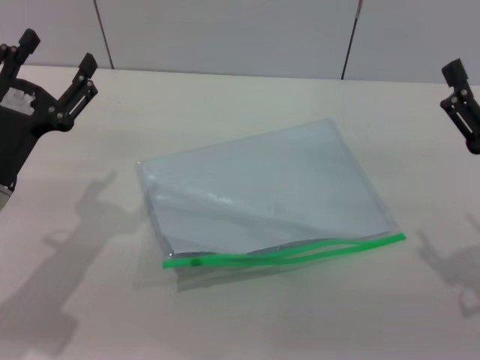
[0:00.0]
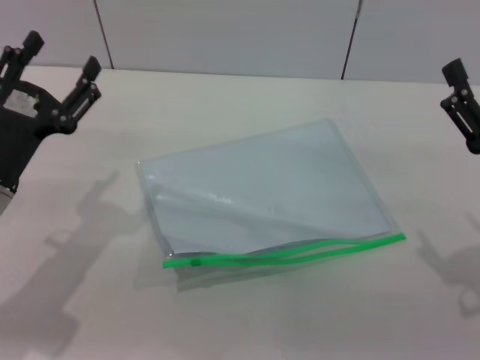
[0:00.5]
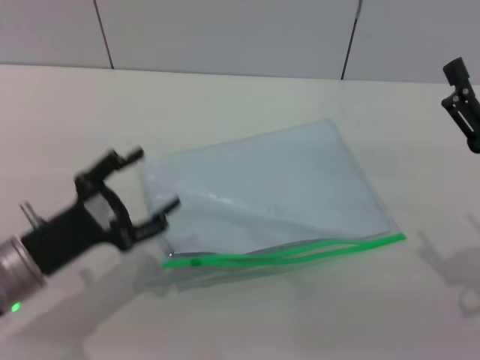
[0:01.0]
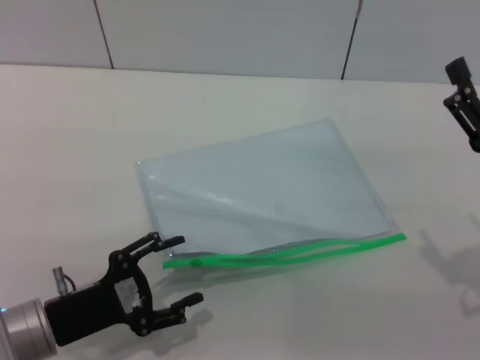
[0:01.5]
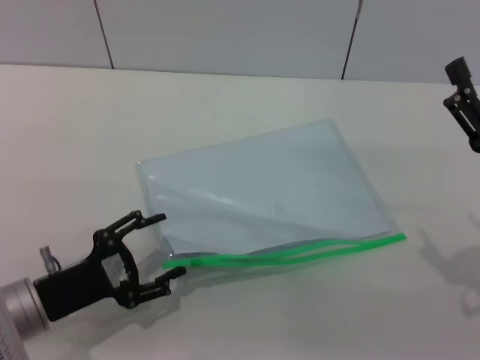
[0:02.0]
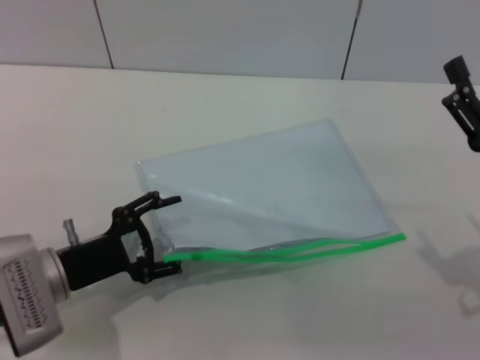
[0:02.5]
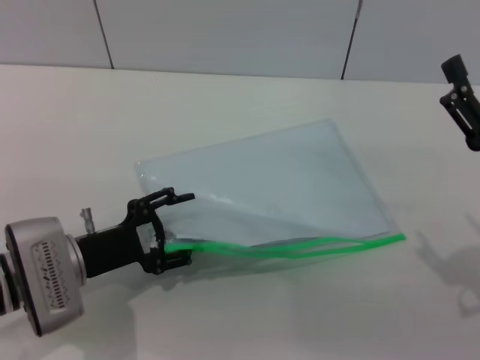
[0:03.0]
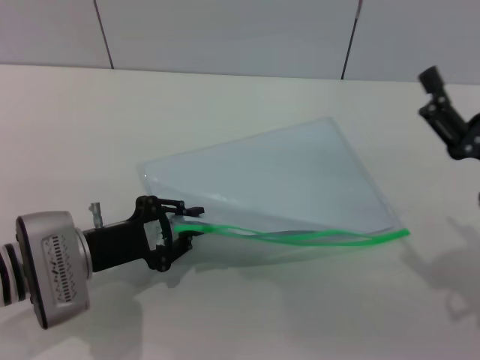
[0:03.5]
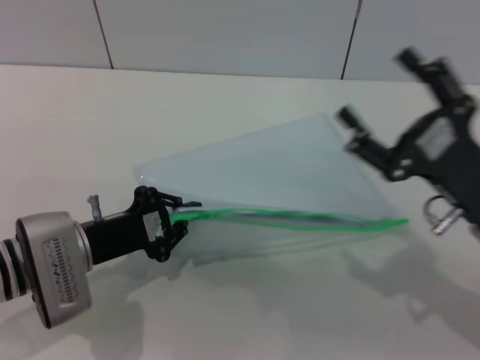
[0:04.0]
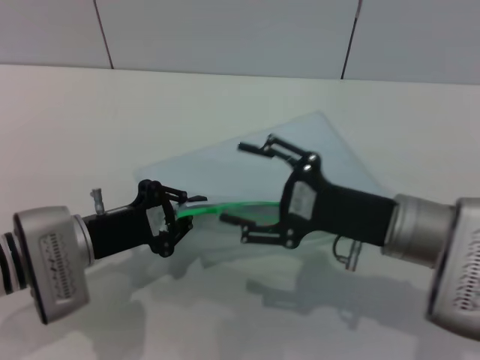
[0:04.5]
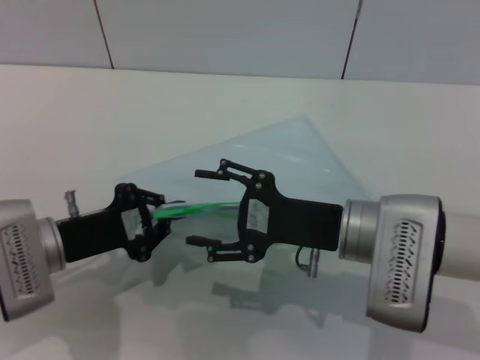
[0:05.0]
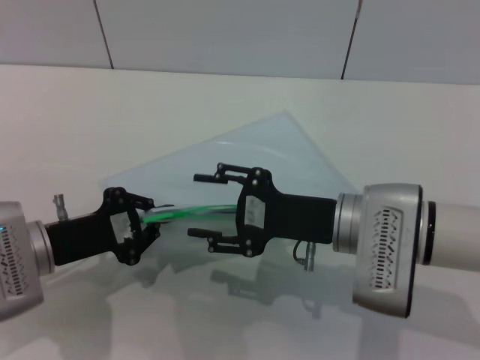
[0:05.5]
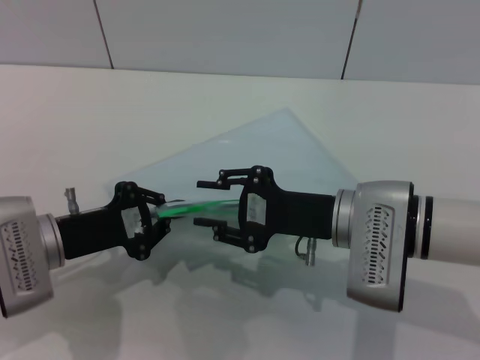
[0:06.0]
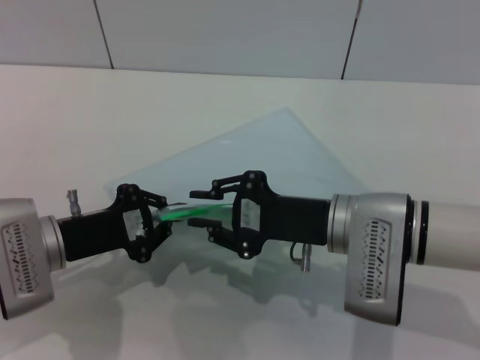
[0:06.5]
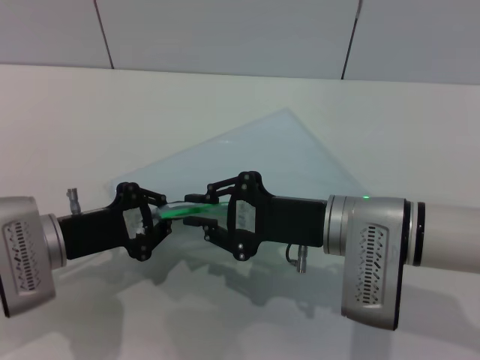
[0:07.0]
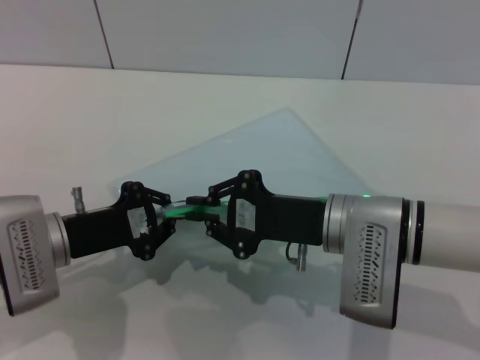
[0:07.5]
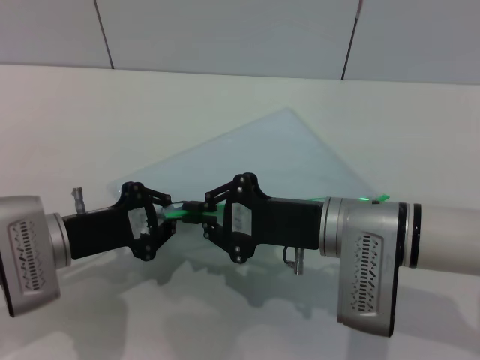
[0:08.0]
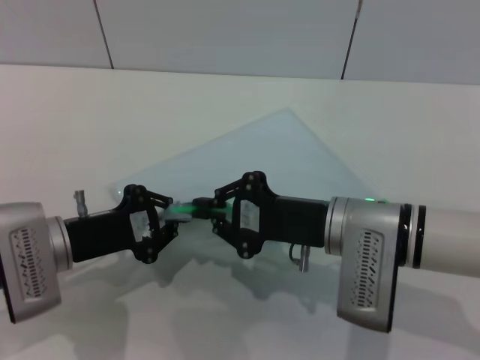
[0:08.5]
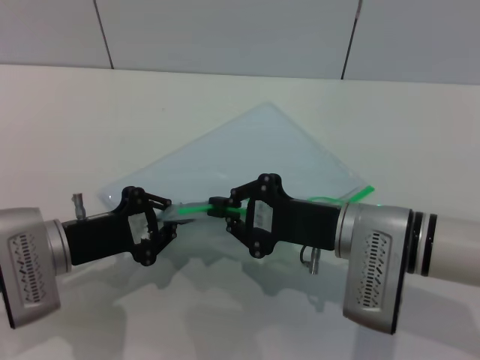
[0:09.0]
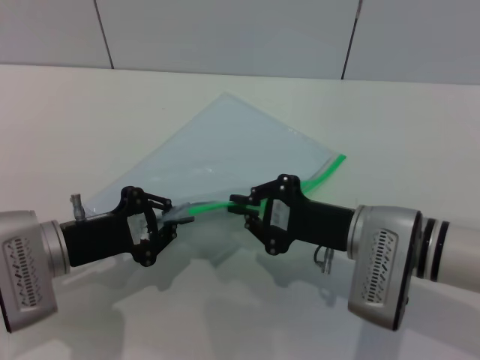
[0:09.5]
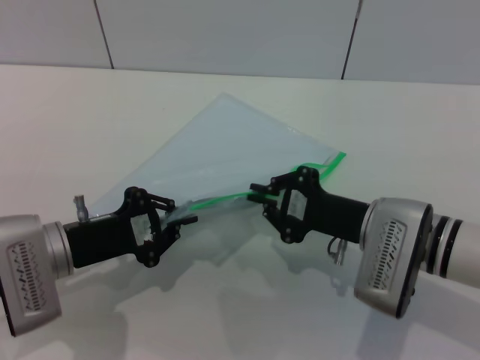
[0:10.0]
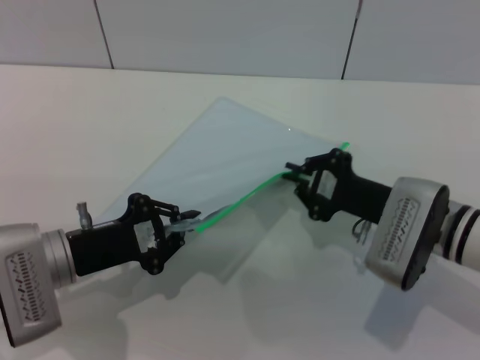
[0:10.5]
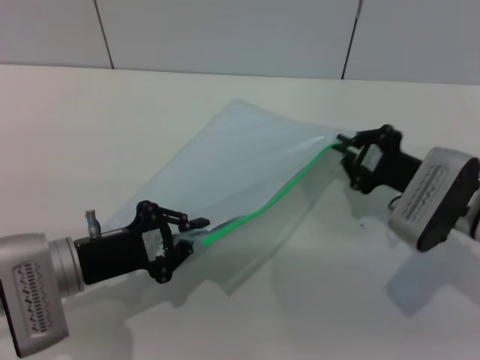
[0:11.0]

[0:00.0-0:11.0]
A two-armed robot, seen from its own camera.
Step, 0:00.0 to 0:04.0: Pick up the transparent plastic bag with the left gripper.
0:00.0 to 0:02.0: The left gripper moves downward and backward, about 10 cm.
0:02.0 to 0:03.5: The left gripper heads forward, covering roughly 5 cm, and closes its fingers.
0:03.5 to 0:05.5: The right gripper moves to the left and forward, approximately 15 cm; the left gripper closes up.
0:05.5 to 0:07.5: The right gripper closes up.
0:07.5 to 0:09.0: The grippers stay close to where they were, moving slightly.
0:09.0 to 0:11.0: The right gripper travels to the right by approximately 10 cm.

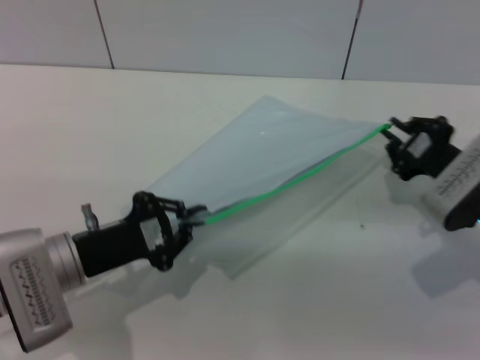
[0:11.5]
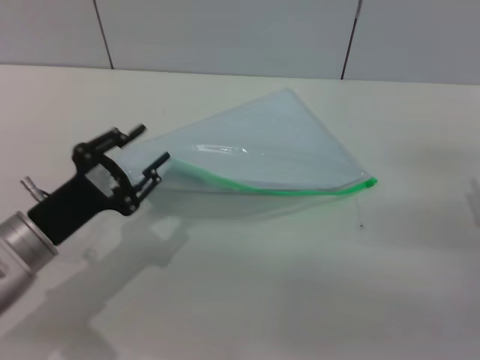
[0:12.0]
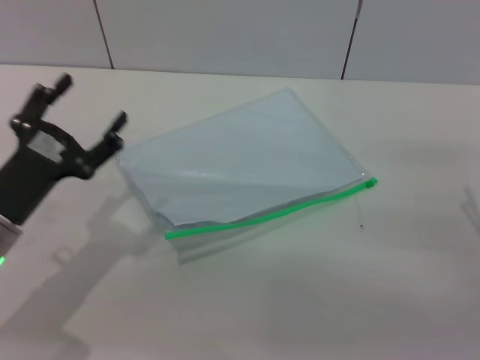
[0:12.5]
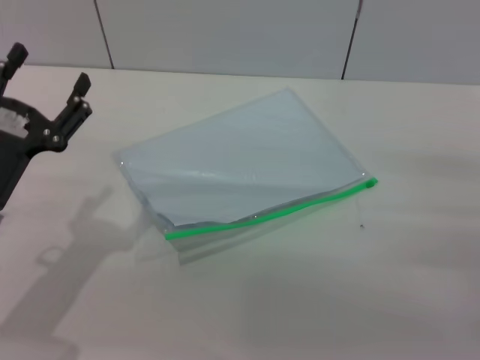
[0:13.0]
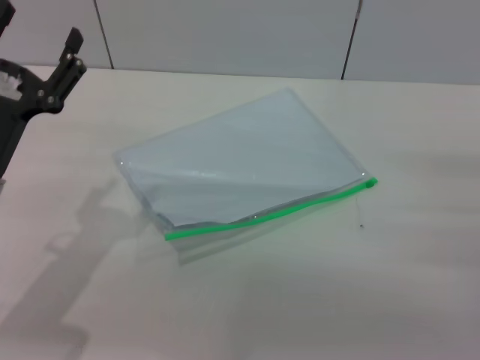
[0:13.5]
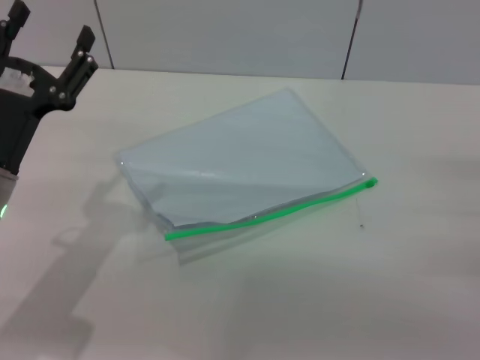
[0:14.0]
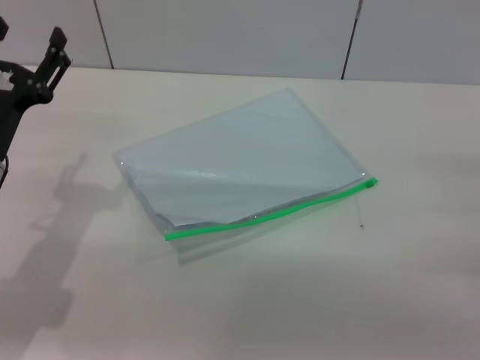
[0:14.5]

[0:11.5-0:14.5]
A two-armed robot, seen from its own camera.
0:11.5 to 0:13.0: The left gripper ends up roughly 5 cm from where it was, and opens. Meanwhile the right gripper travels backward and to the right by approximately 10 cm, and opens up.
0:13.0 to 0:14.5: The grippers move only a little.

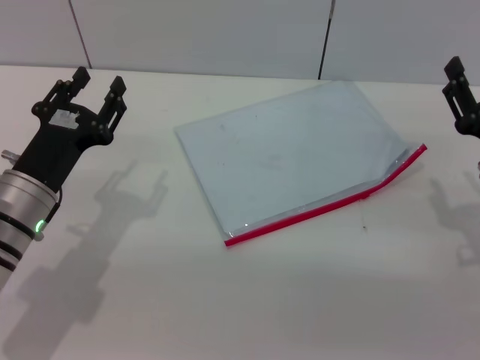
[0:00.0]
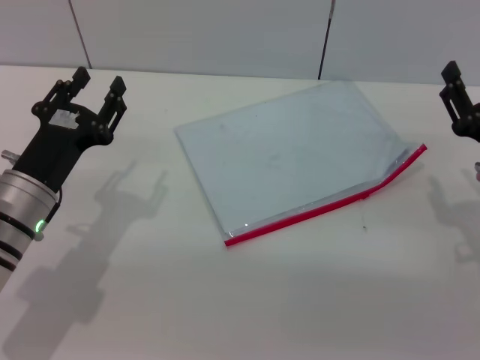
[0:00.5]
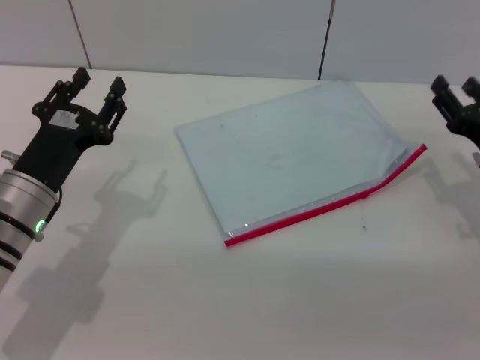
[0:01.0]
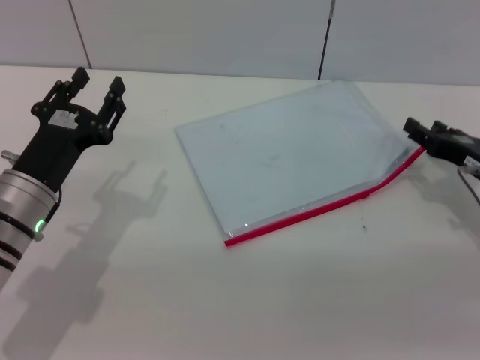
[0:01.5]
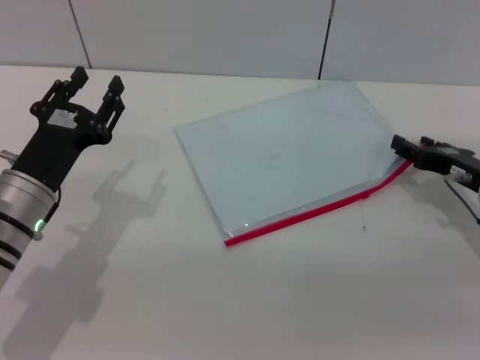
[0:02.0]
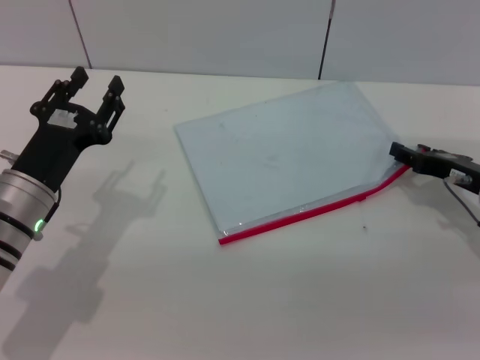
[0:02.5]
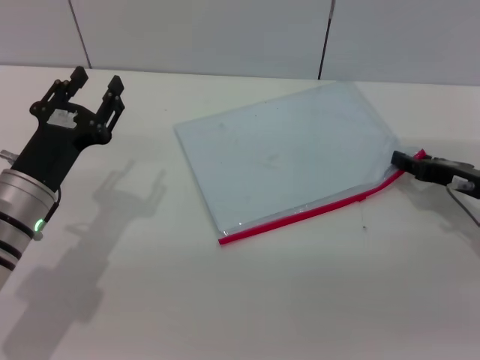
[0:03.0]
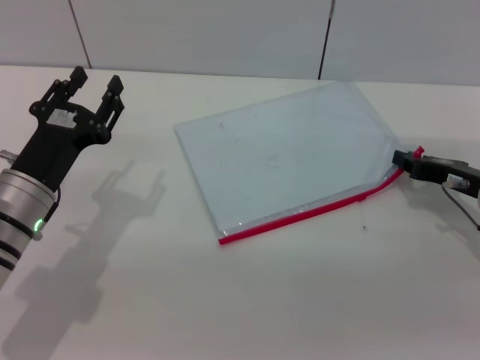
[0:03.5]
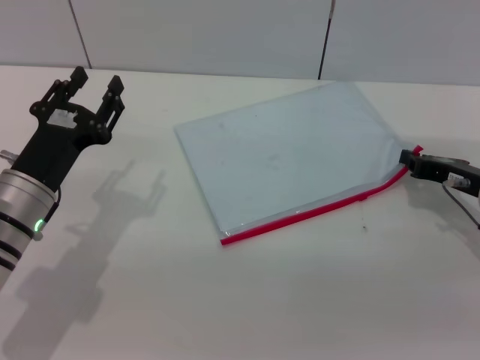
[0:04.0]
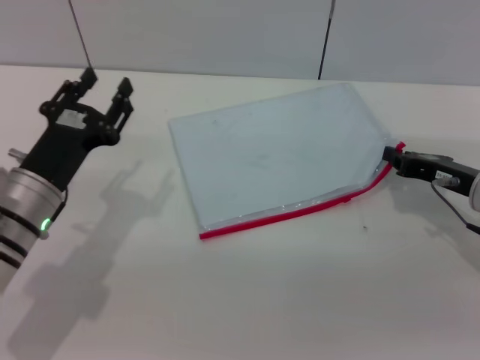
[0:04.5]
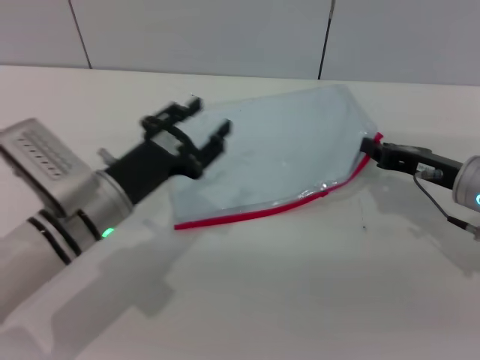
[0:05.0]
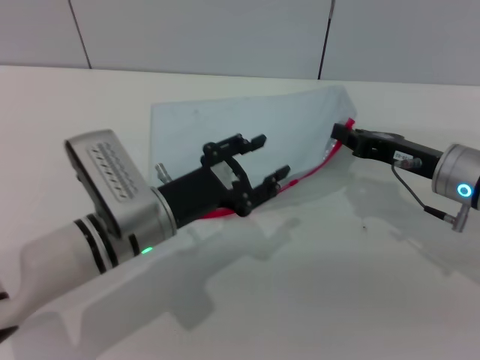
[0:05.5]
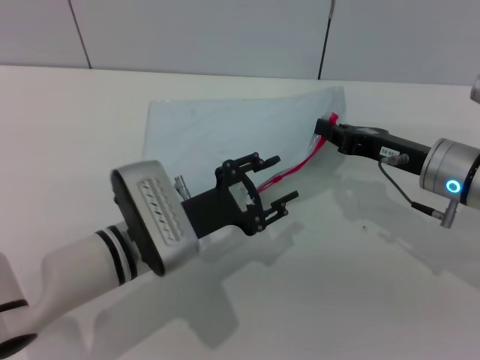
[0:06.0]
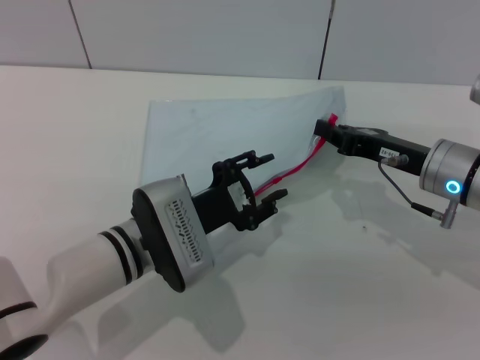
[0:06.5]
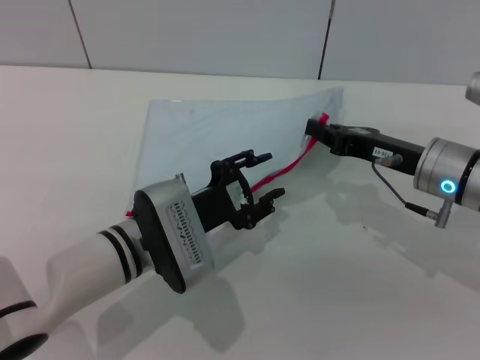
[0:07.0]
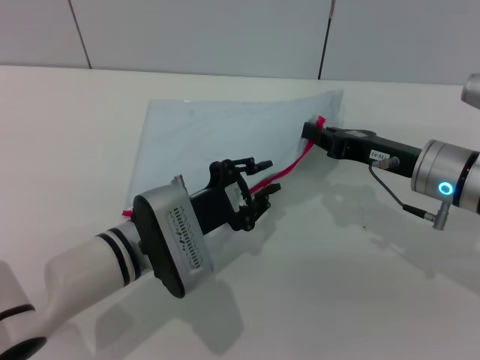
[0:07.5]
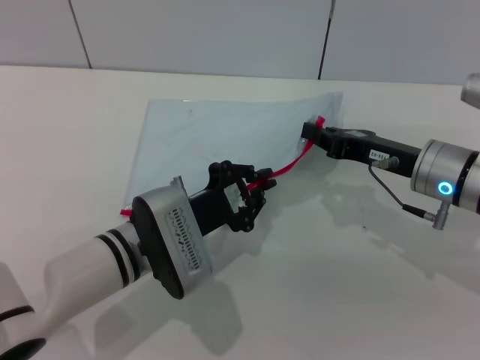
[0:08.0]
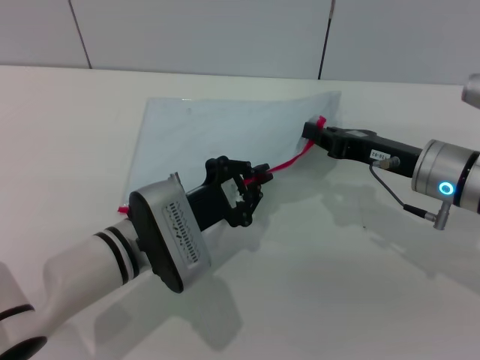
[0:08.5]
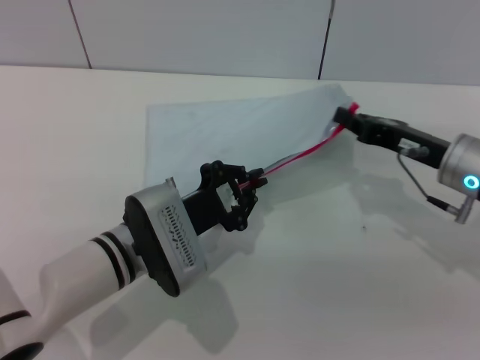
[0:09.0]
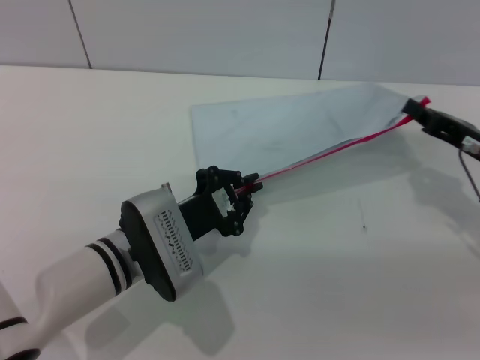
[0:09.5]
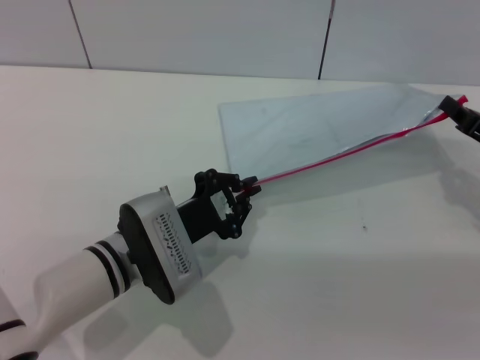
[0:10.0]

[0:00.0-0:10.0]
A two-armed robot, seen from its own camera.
Step, 0:00.0 to 0:05.5: Pick up the transparent plastic bag with the right gripper.
0:00.0 to 0:02.0: The right gripper goes approximately 5 cm forward.
0:02.0 to 0:04.0: The right gripper closes.
0:04.0 to 0:06.0: The left gripper moves to the right, approximately 10 cm. Meanwhile the right gripper goes roughly 5 cm to the left.
0:06.0 to 0:08.0: The left gripper closes its fingers.
0:08.0 to 0:10.0: The right gripper heads to the right, covering about 10 cm.

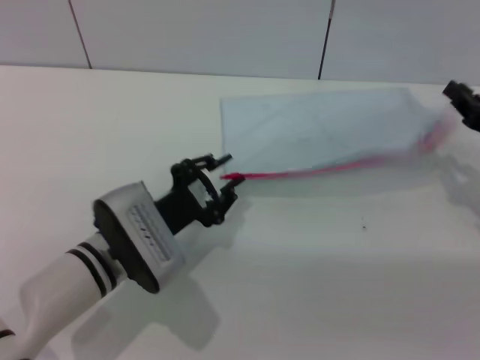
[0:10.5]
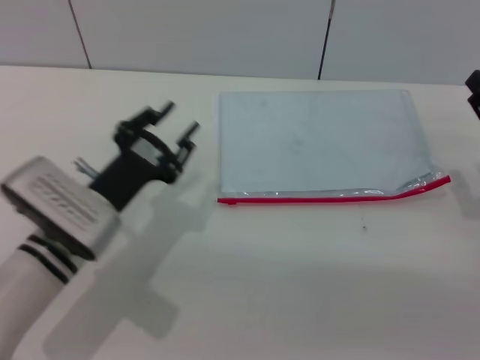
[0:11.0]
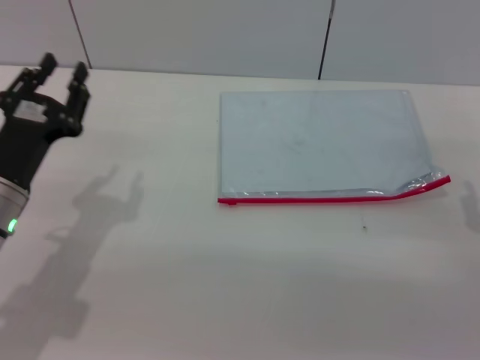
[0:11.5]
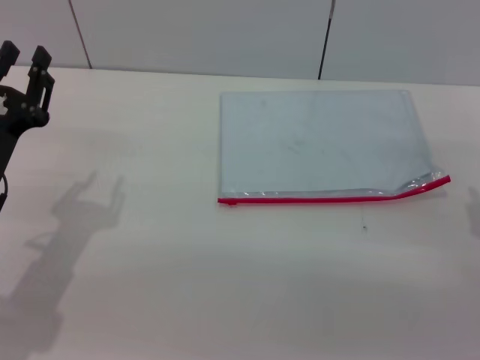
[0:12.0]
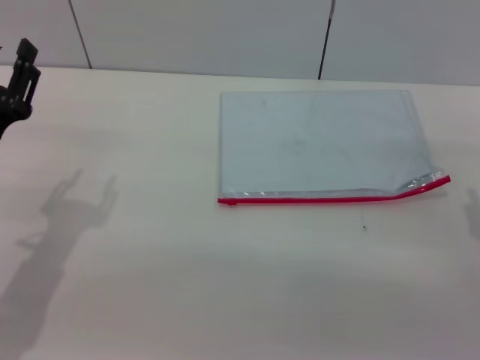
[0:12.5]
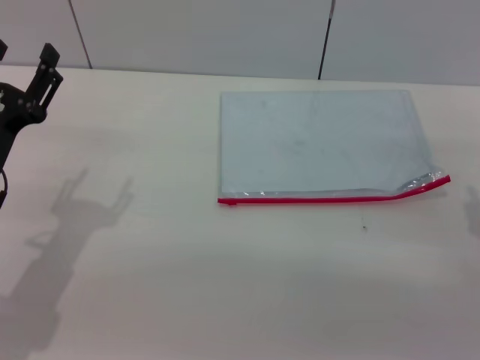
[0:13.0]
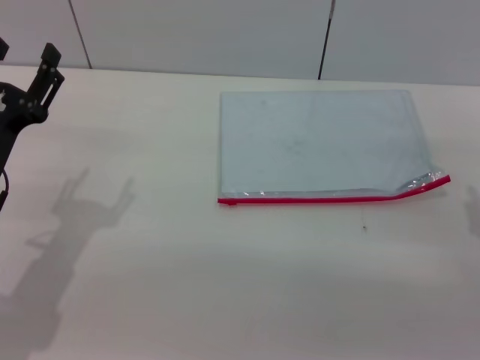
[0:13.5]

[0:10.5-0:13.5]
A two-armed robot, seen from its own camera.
Step, 0:11.0 to 0:12.0: Place the transparent plastic bag.
0:10.5 to 0:12.0: The left gripper goes about 15 cm to the left and upward, and opens its fingers; the right gripper goes some 5 cm backward, and opens its fingers.
0:12.0 to 0:13.5: The left gripper opens up.
